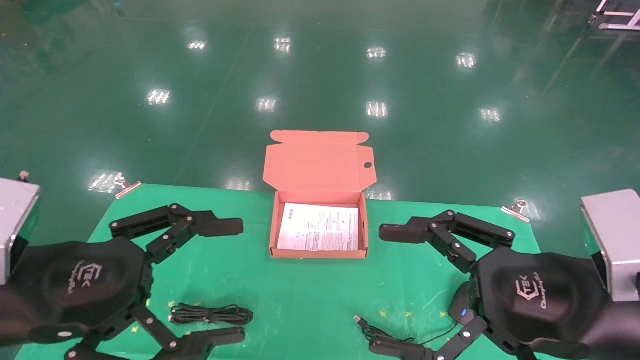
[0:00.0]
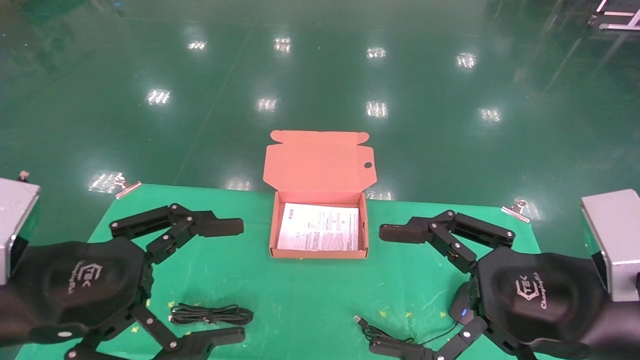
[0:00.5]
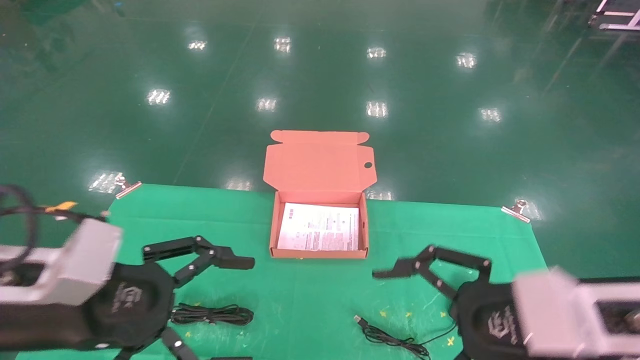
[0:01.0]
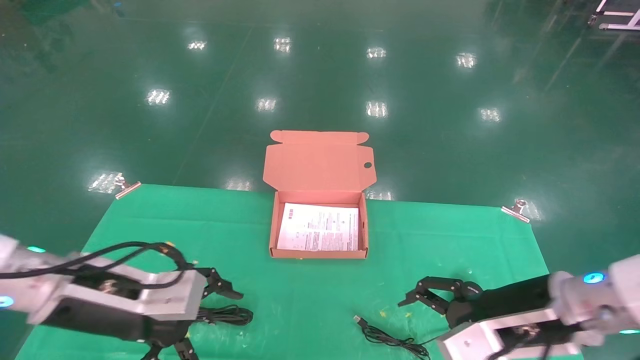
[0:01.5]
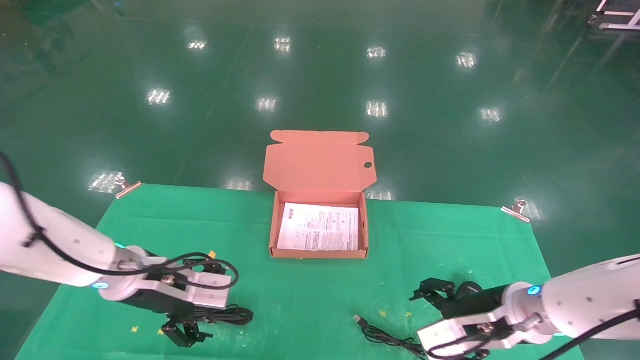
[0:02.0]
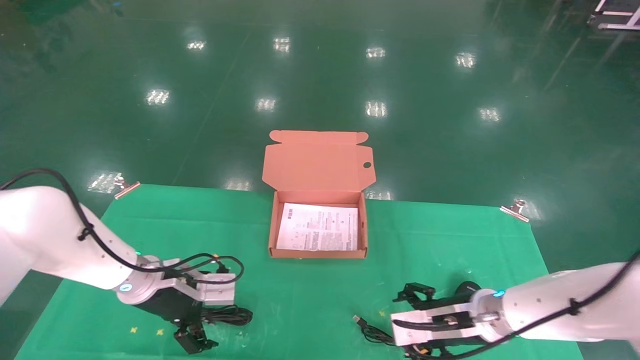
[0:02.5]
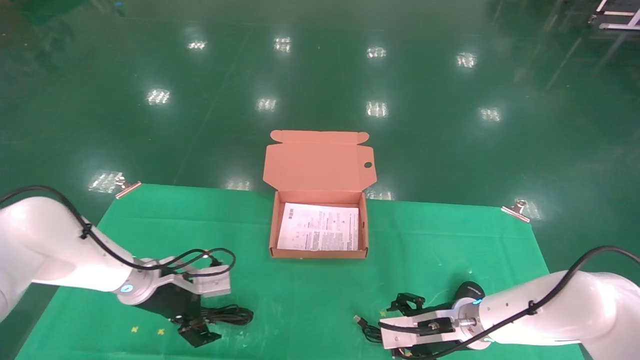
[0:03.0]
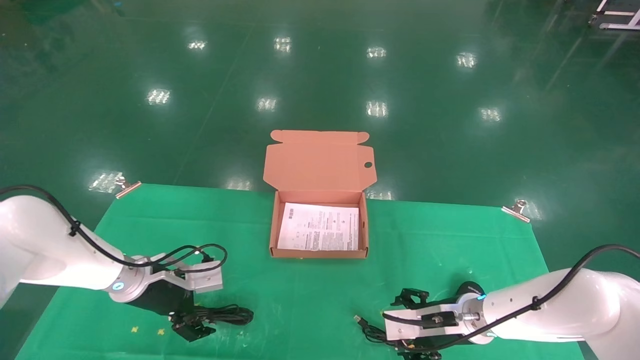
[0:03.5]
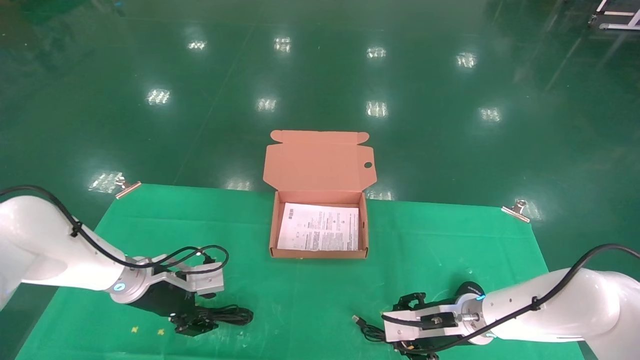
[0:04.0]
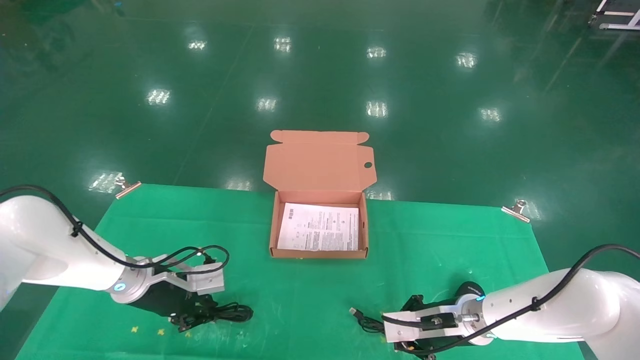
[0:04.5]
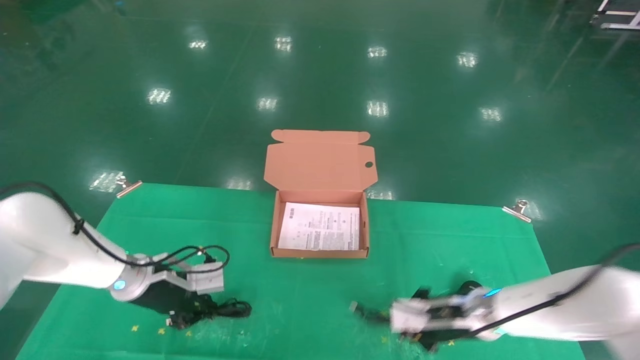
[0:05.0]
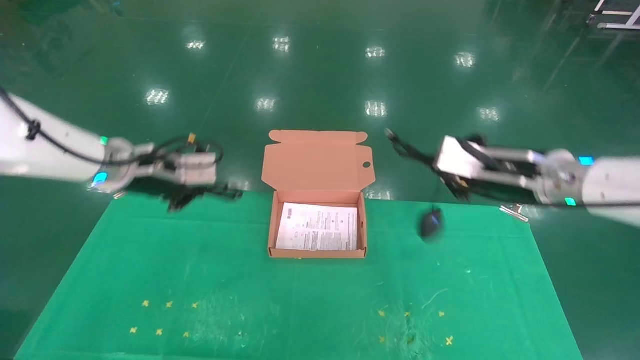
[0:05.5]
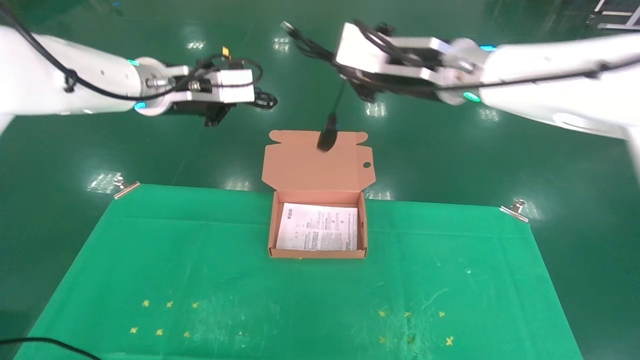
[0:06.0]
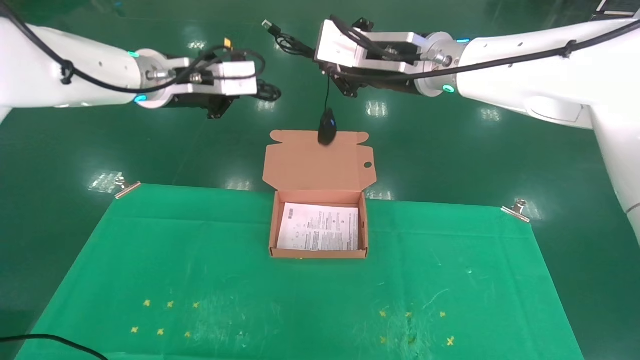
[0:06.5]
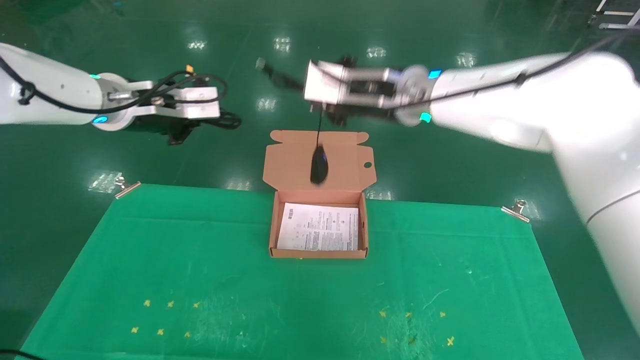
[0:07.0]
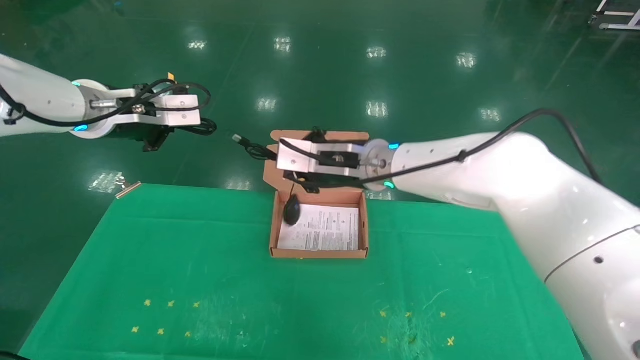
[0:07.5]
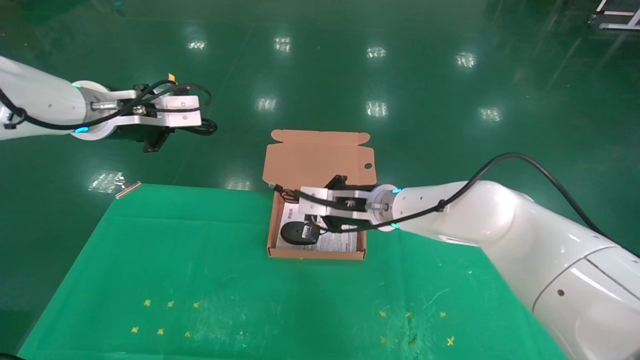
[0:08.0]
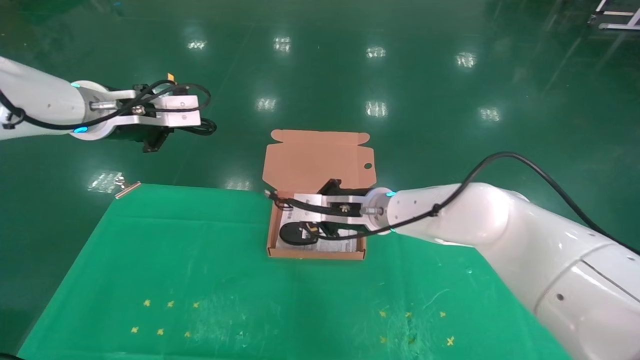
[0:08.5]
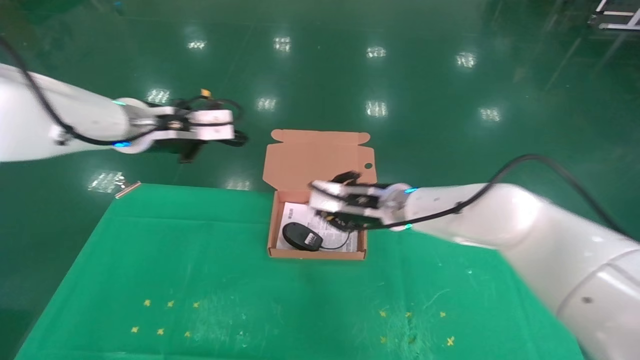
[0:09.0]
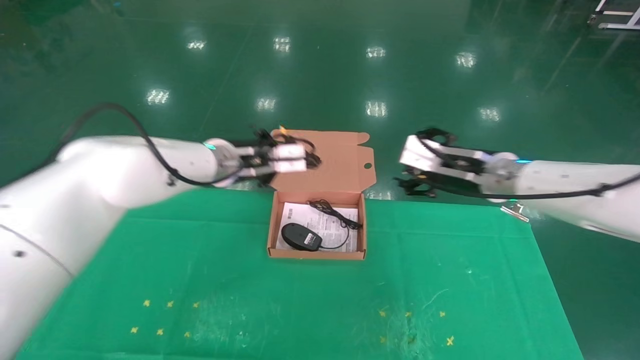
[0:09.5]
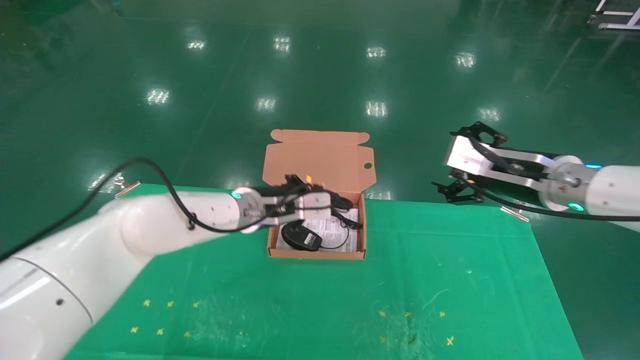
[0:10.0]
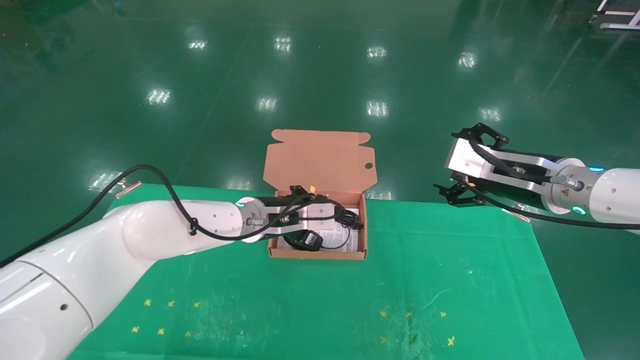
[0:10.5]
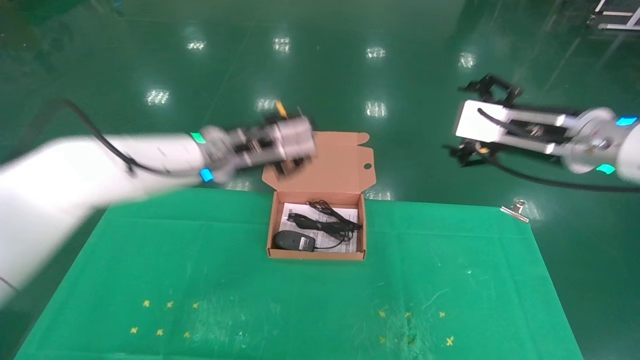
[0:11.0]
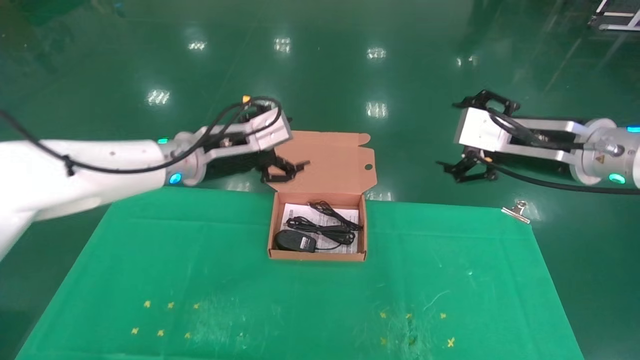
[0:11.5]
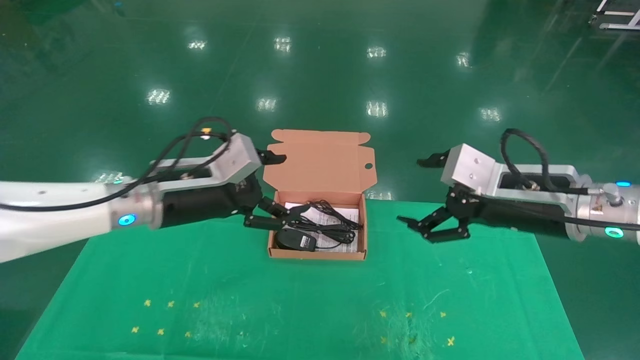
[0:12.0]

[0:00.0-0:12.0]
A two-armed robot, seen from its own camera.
Task of the whole recording: grasp data cable left put into box grasp mouse right put into box.
Step, 0:01.0 to 0:05.5: Grab and pick up both the mouse and power cord from the accessory packaging area at the same time.
Step, 0:06.0 to 0:11.0: Place the mouse and power cord into the box.
0:00.0 to 0:02.0: The grippers both shift forward and downward by roughly 20 cm.
0:02.0 to 0:04.0: The right gripper heads downward and forward, covering about 10 cm. Meanwhile the left gripper goes roughly 10 cm forward and downward, and closes its fingers.
0:04.0 to 0:06.0: Both grippers travel together upward, about 30 cm. The left gripper closes its fingers. Meanwhile the right gripper closes up.
0:06.0 to 0:08.0: The left gripper heads to the left, covering about 5 cm; the right gripper moves downward and to the left, some 20 cm.
0:08.0 to 0:10.0: The left gripper goes about 25 cm to the right and downward. The right gripper goes roughly 20 cm to the right, and opens.
0:10.0 to 0:12.0: The right gripper shifts approximately 5 cm backward. Meanwhile the left gripper travels backward, to the left and upward by some 15 cm, and opens up.
